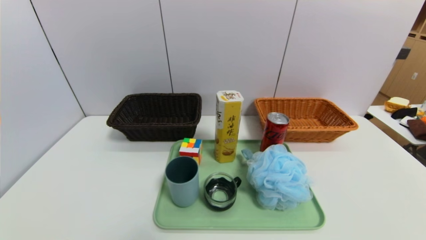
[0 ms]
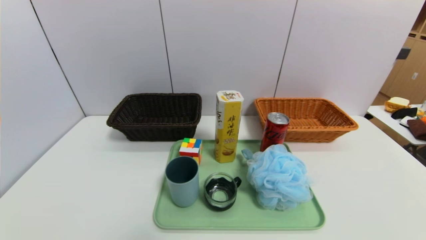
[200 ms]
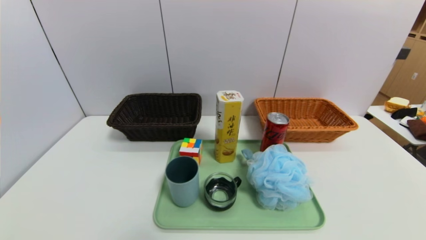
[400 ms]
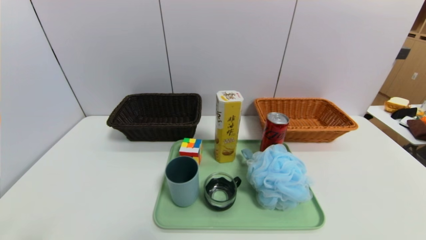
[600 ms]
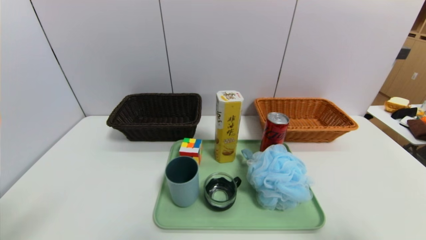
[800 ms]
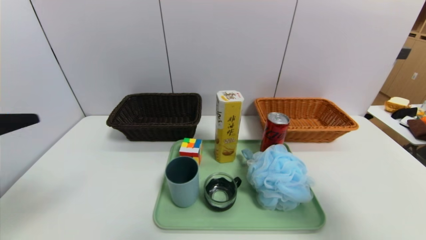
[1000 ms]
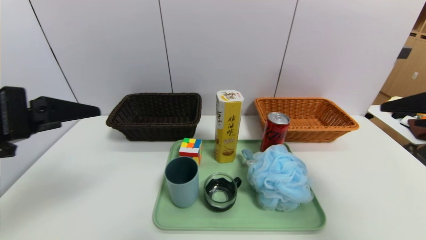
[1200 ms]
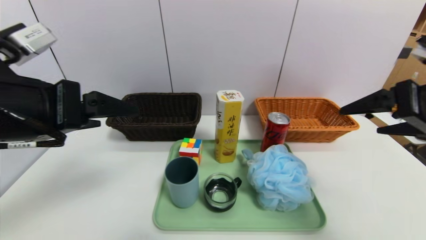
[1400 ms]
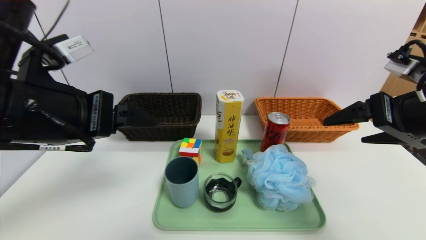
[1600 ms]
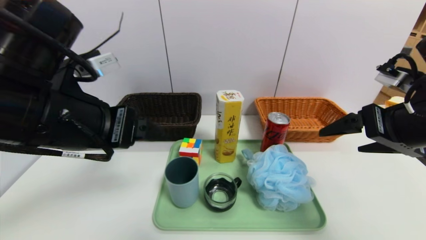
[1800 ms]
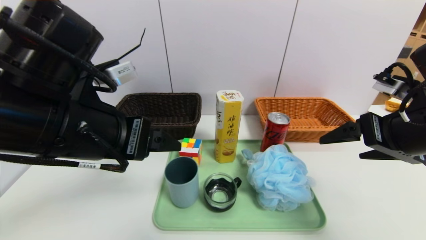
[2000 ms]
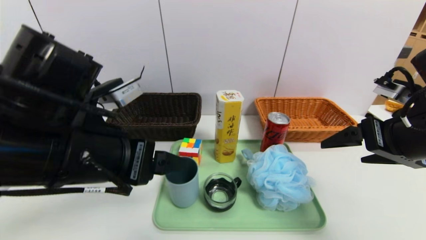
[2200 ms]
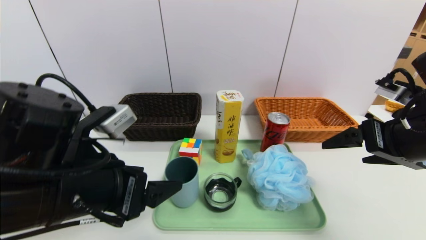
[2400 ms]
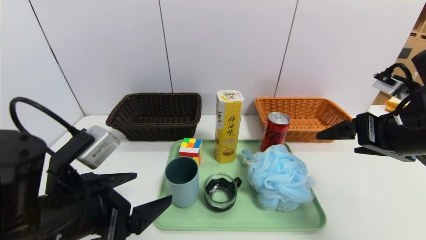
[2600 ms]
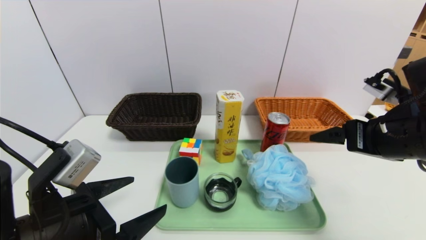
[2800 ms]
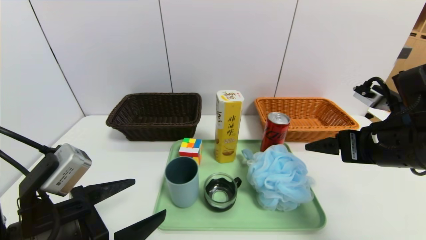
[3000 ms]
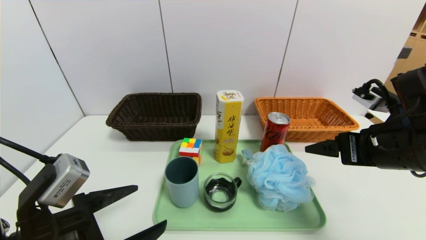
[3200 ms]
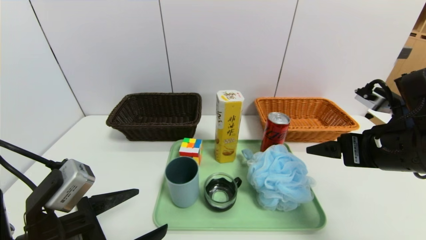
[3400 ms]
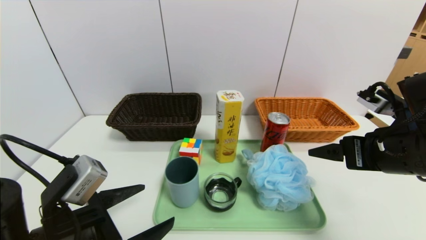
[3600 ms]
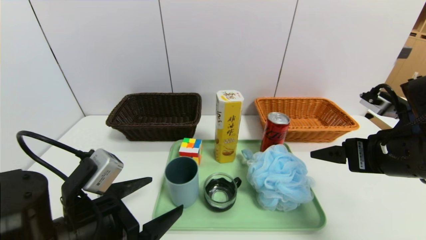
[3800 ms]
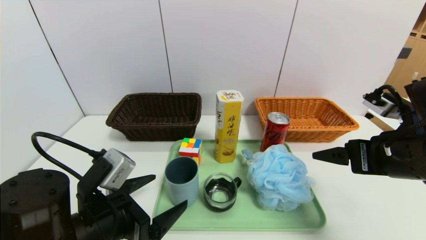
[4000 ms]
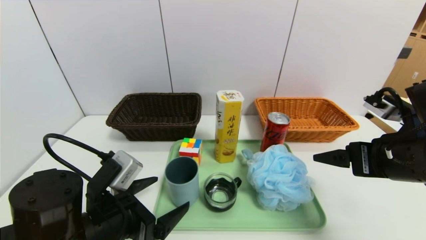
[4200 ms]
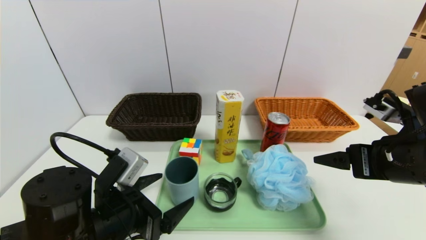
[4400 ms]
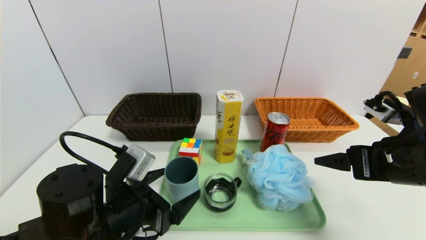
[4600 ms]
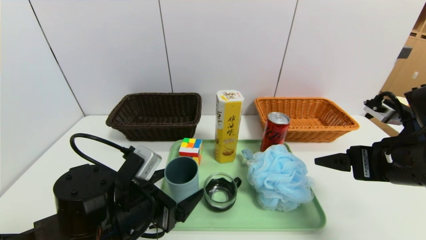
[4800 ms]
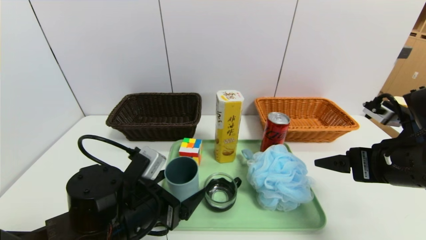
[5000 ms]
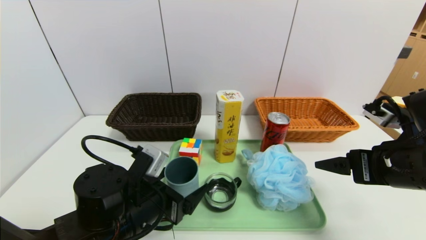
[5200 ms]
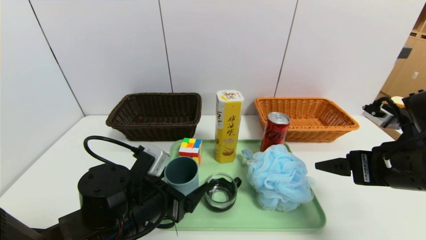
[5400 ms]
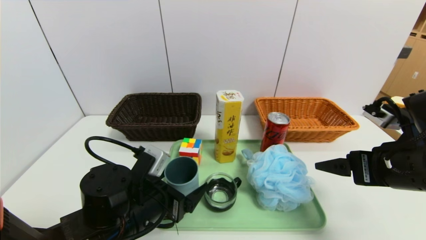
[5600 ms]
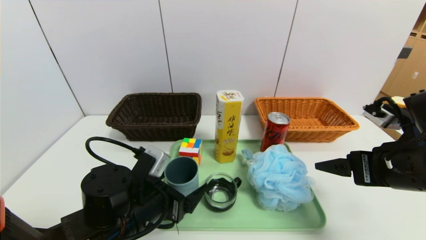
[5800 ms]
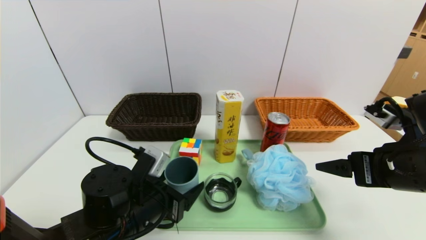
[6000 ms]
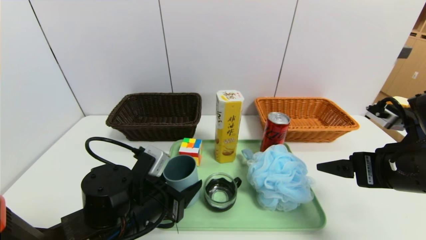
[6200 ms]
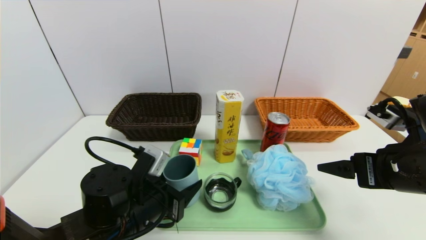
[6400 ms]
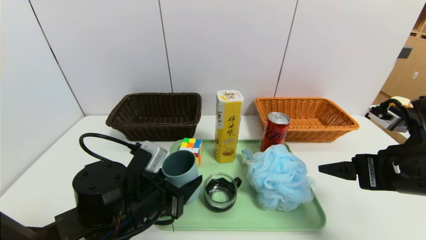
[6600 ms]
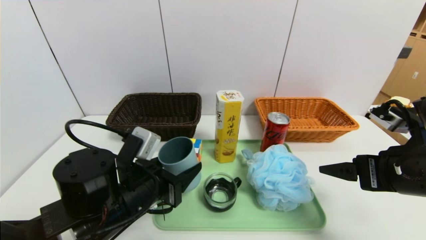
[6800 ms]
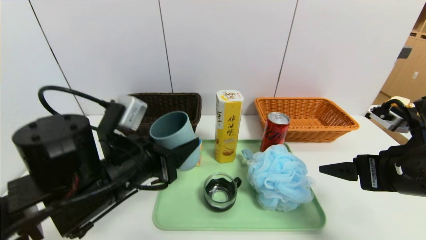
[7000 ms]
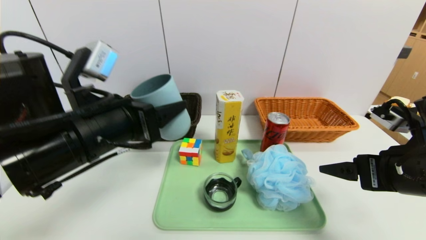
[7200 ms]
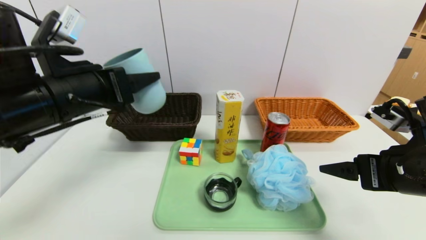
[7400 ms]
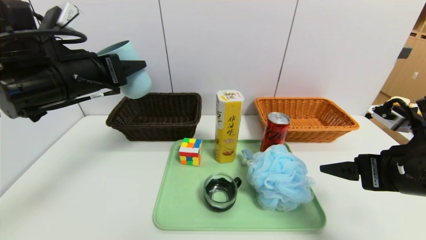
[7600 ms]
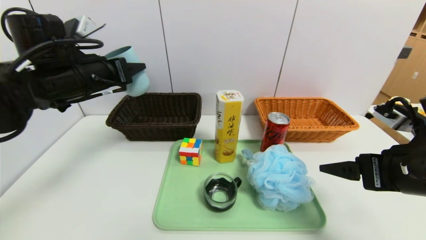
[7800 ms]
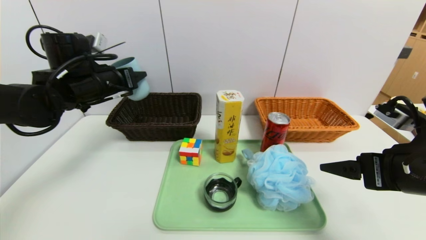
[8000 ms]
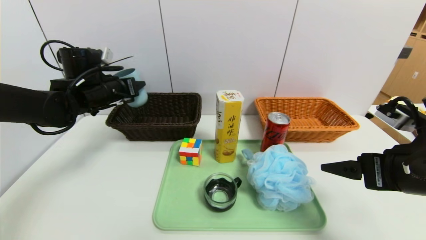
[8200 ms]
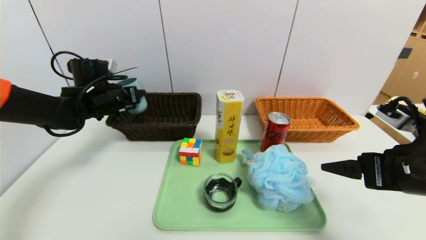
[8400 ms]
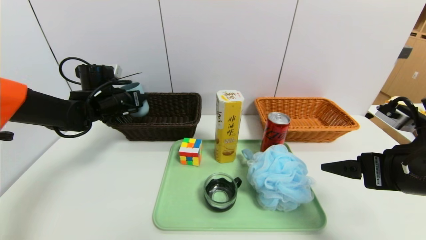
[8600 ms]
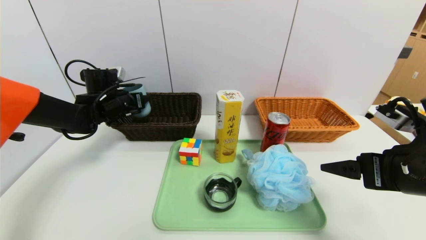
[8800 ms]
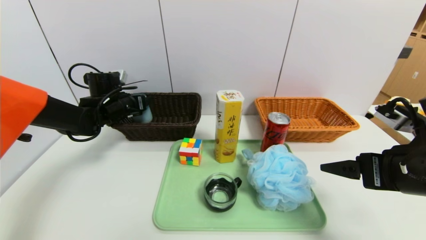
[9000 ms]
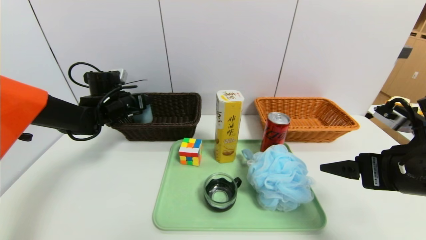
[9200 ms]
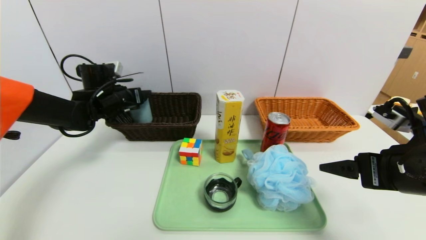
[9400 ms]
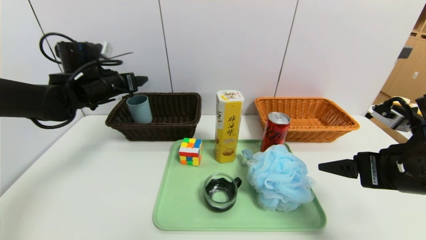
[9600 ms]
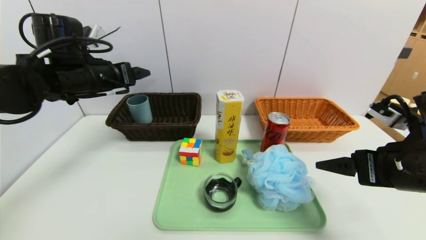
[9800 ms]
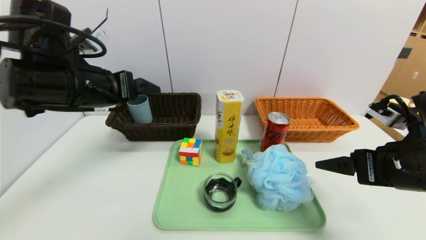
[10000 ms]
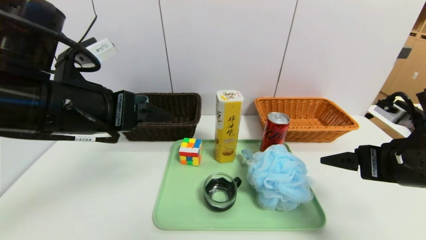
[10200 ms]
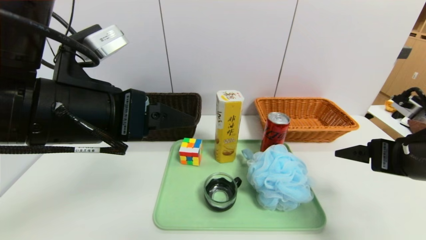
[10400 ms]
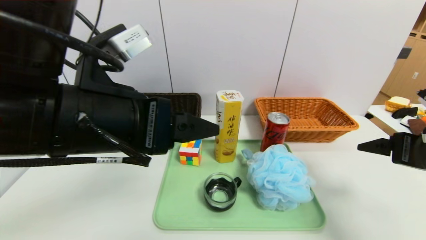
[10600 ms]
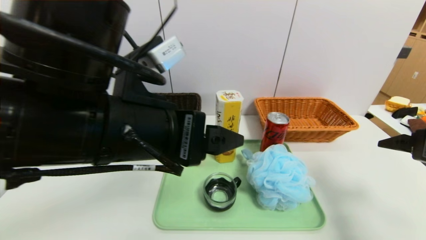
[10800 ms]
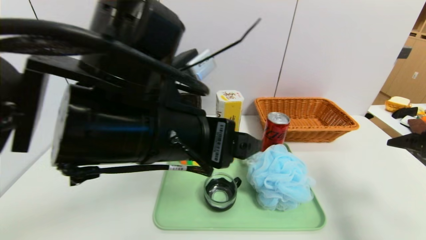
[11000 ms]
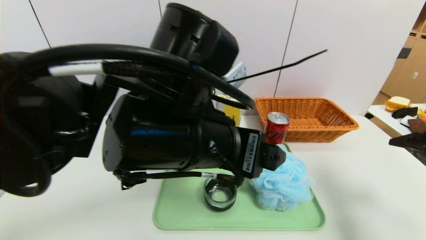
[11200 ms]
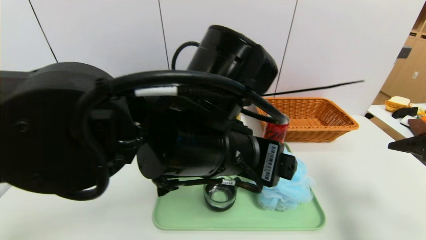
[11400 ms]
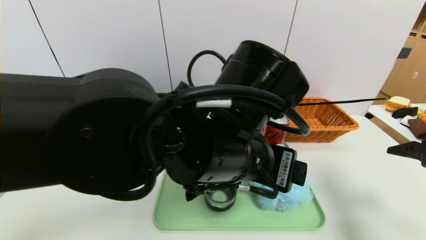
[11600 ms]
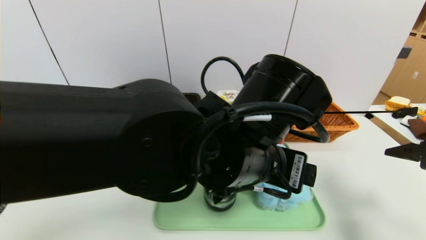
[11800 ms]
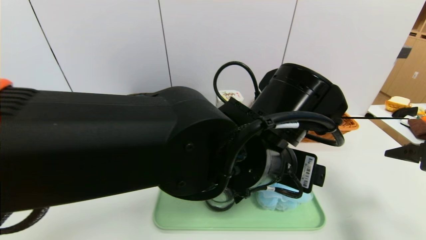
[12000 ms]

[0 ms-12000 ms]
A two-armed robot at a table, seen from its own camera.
Task of the whole recording: place the food in the right basket with the right gripper, and place the non food items in the left basket with the left gripper.
Step, 0 ms to 10000 ms: Grasp the blue cup and put it in the left basket.
0 ms to 1600 ms: The left gripper goes some 30 cm upward, forward and to the right. Meanwhile the right gripper heads forward and upward, covering approximately 30 cm.
1600 ms to 3000 ms: The left gripper shifts roughly 15 cm downward and backward; the right gripper goes some 5 cm downward.
3000 ms to 4400 ms: The left gripper changes place by roughly 10 cm.
4400 ms to 6000 ms: The left gripper ends up approximately 5 cm from where it was.
6000 ms to 7600 ms: The left gripper is displaced upward, to the left and forward by approximately 25 cm.
7600 ms to 9000 ms: The left gripper is displaced forward and downward by approximately 20 cm.
9000 ms to 10400 ms: The left gripper travels backward, upward and to the right by some 30 cm.
10400 ms to 12000 ms: The right gripper is displaced to the right by some 5 cm. The left gripper is displaced to the right by approximately 20 cm.

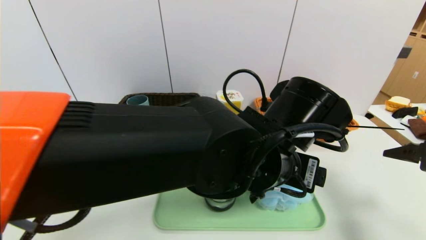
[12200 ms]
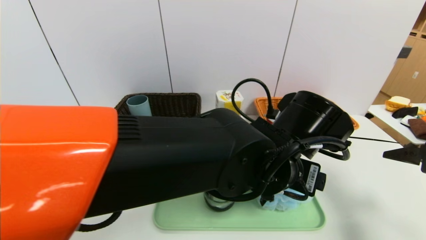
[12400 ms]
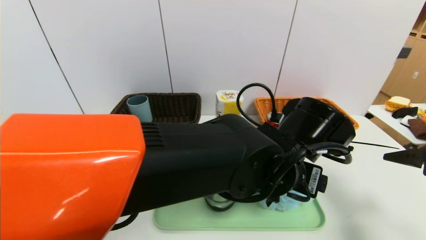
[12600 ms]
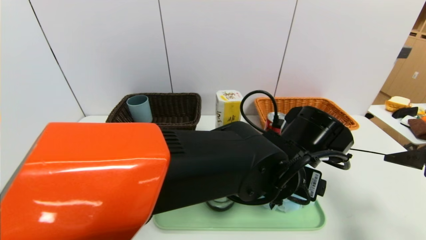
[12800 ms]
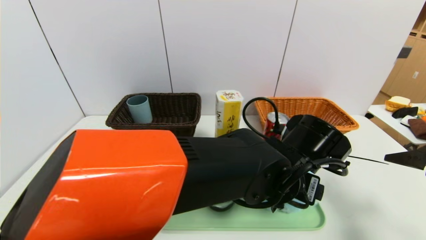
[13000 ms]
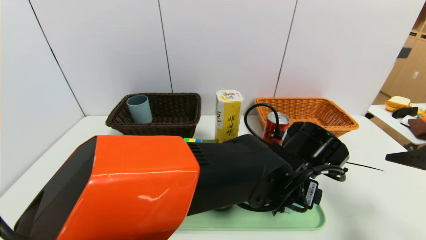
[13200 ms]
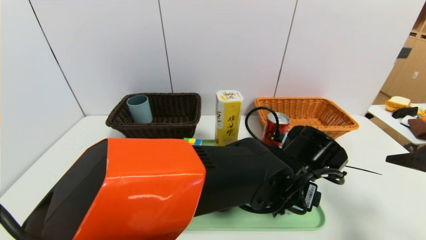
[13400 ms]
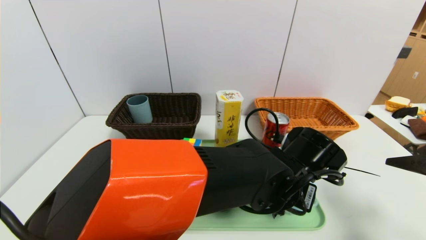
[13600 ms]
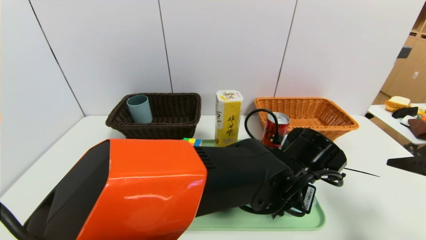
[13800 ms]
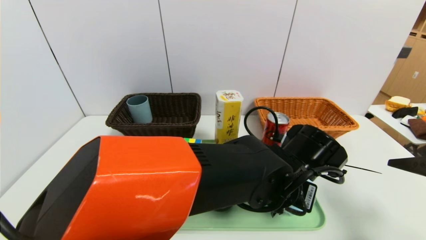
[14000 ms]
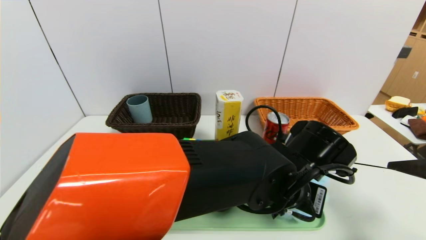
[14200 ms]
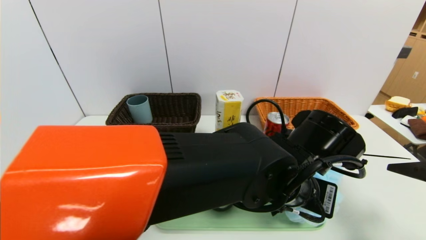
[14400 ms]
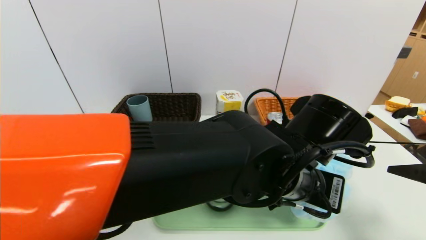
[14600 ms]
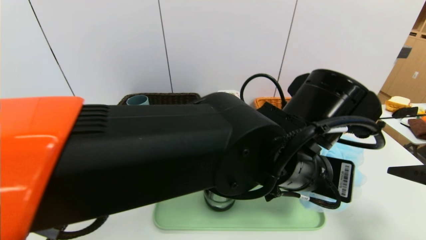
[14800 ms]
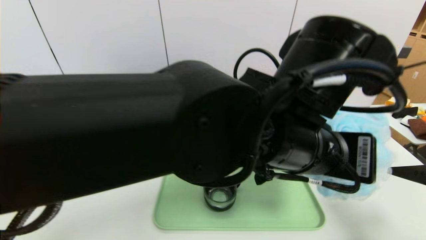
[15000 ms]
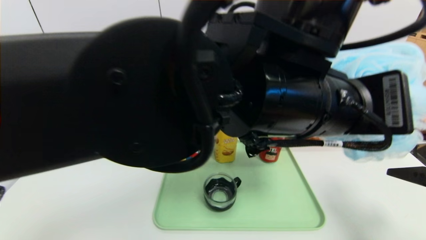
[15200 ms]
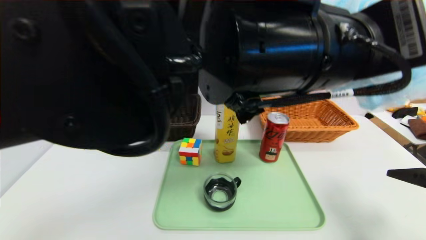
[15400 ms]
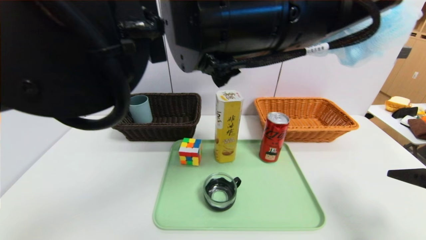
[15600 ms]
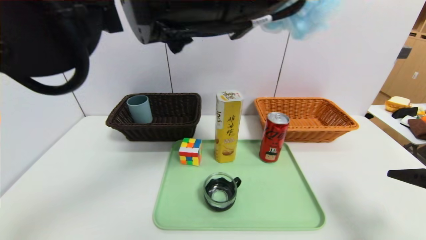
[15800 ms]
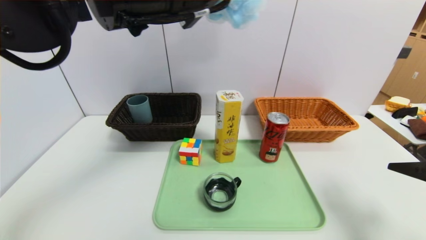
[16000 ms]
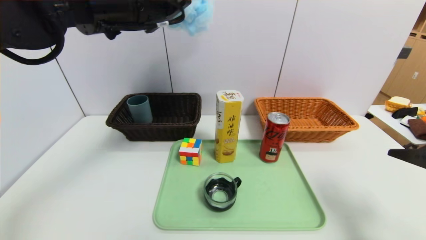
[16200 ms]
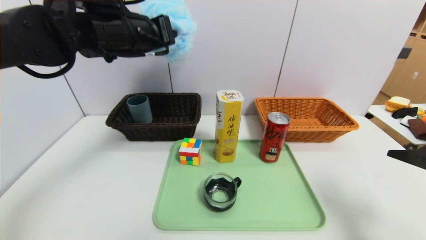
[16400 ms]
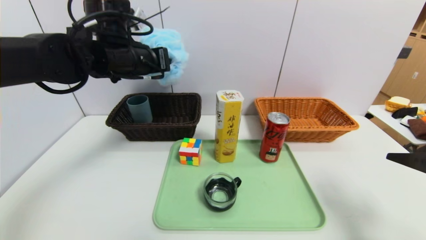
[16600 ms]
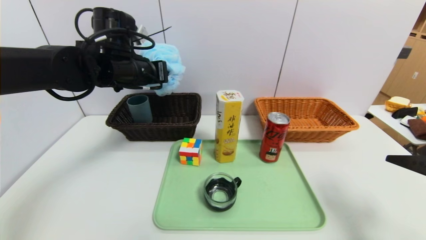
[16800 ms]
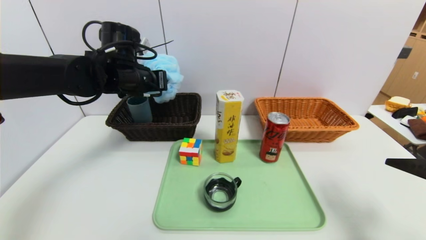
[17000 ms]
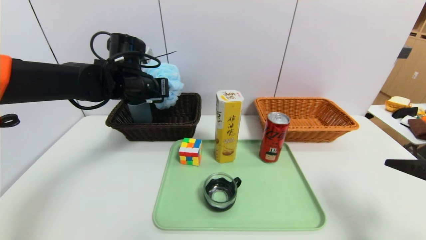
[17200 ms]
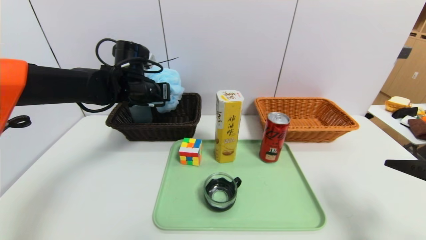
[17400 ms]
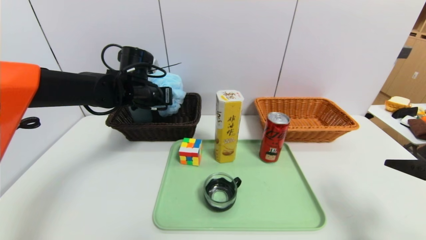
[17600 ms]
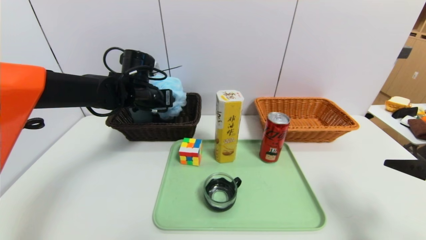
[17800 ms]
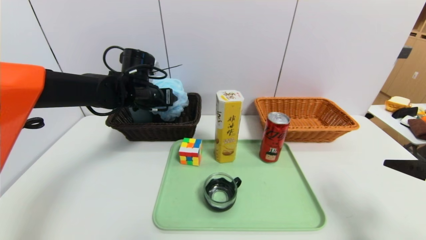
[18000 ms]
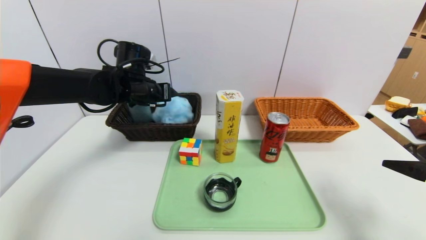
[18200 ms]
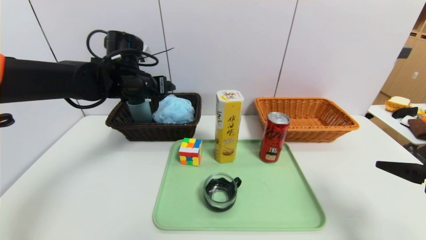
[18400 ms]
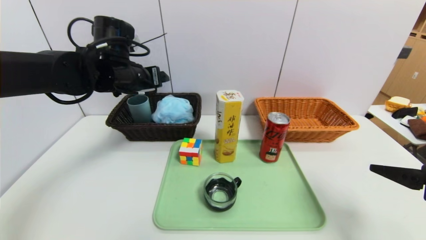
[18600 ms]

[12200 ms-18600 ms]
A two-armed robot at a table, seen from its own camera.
Task of the whole recording: place the food in the right basket with the right gripper, and place the non food items in the left basket with the left gripper.
12200 ms to 13800 ms: The left gripper goes some 10 cm downward, and closes up.
13800 ms to 15400 ms: The left gripper goes approximately 20 cm upward.
15400 ms to 17000 ms: The left gripper is displaced to the left, forward and downward by approximately 30 cm.
17000 ms to 18600 ms: The left gripper opens up.
